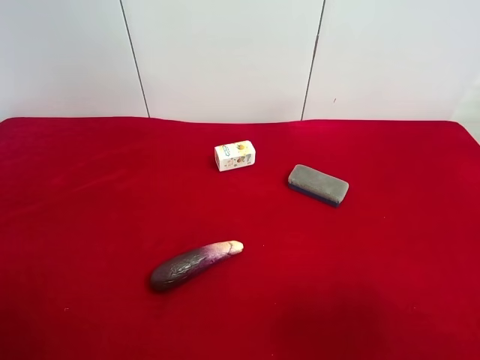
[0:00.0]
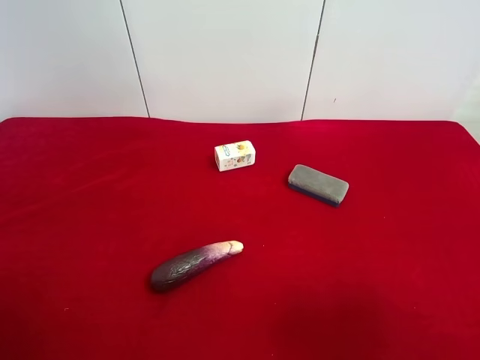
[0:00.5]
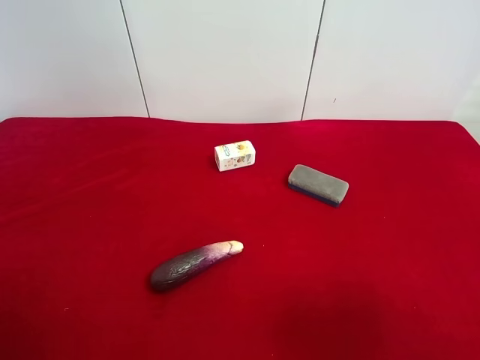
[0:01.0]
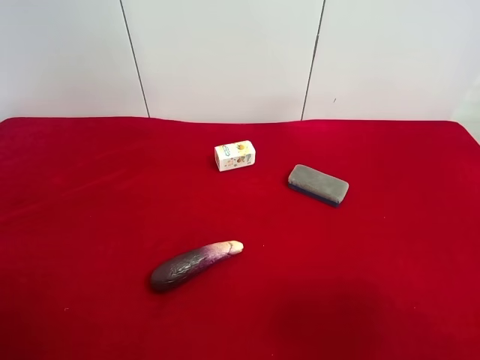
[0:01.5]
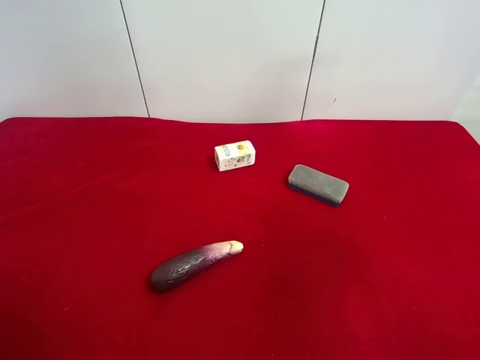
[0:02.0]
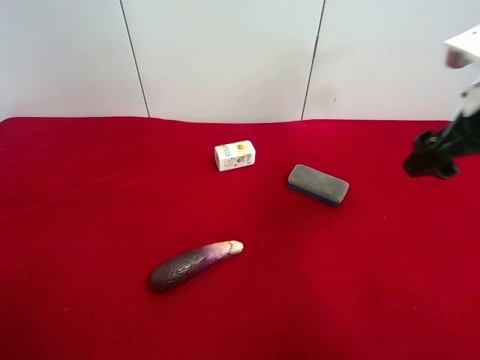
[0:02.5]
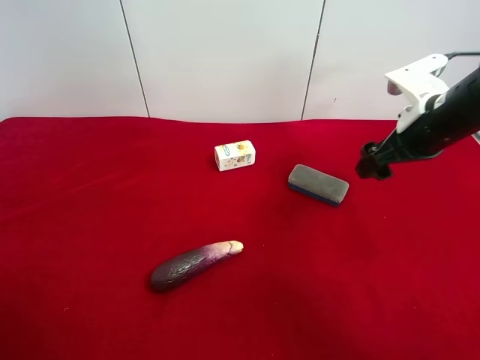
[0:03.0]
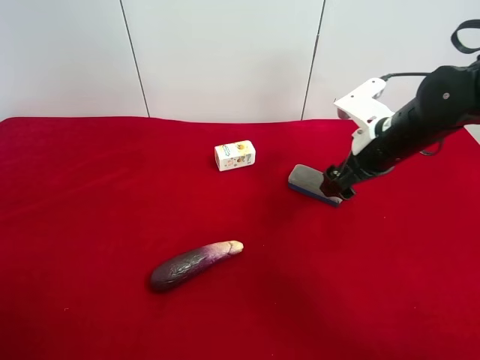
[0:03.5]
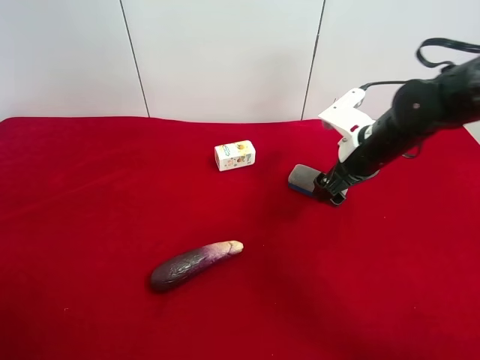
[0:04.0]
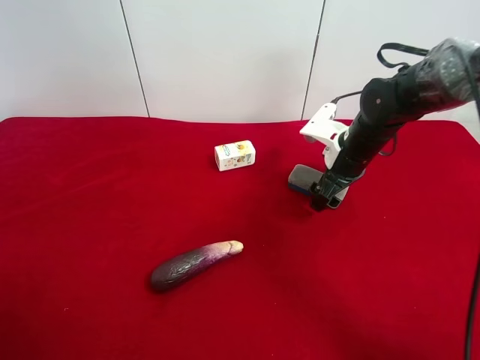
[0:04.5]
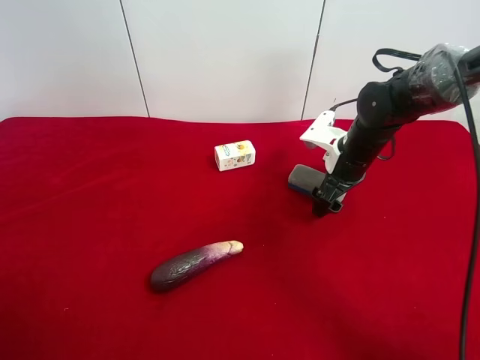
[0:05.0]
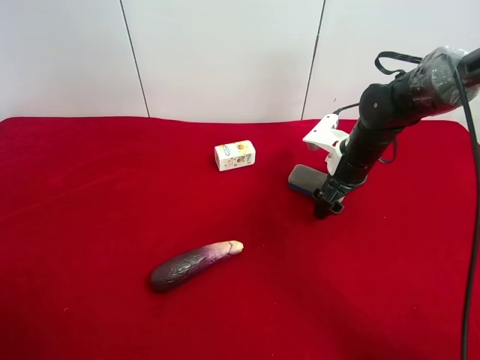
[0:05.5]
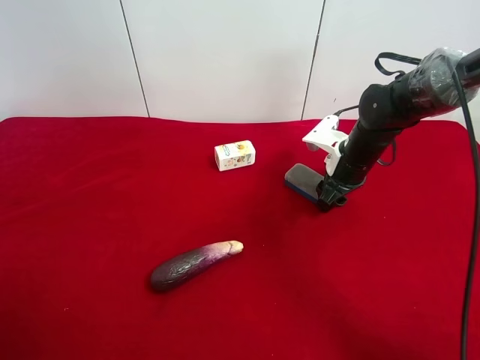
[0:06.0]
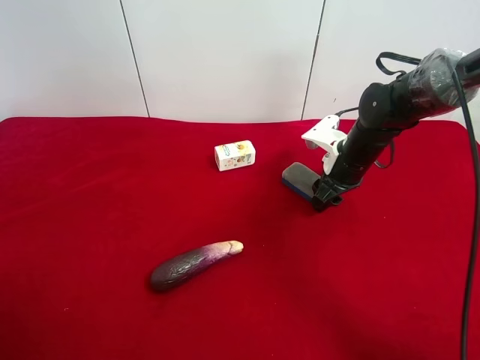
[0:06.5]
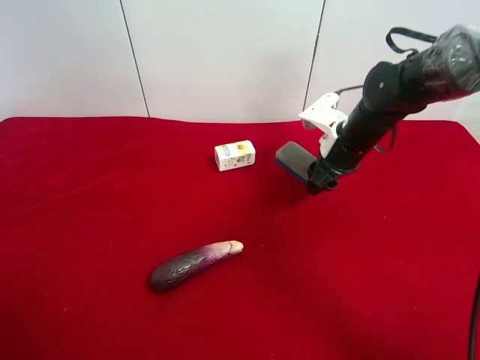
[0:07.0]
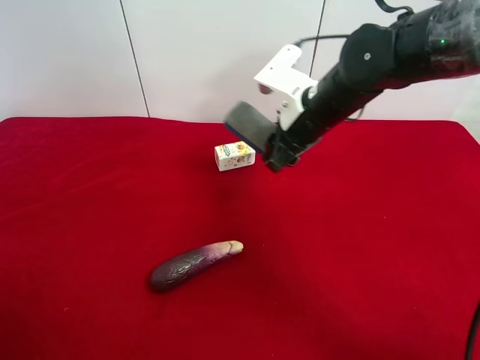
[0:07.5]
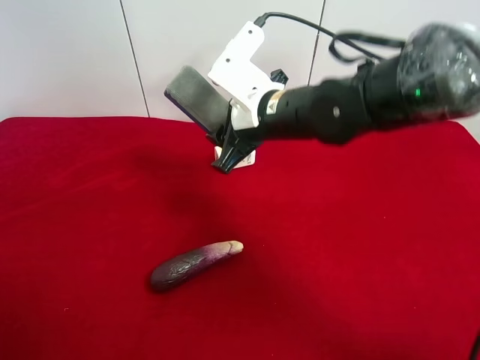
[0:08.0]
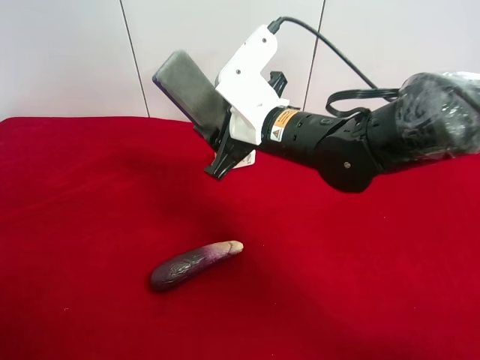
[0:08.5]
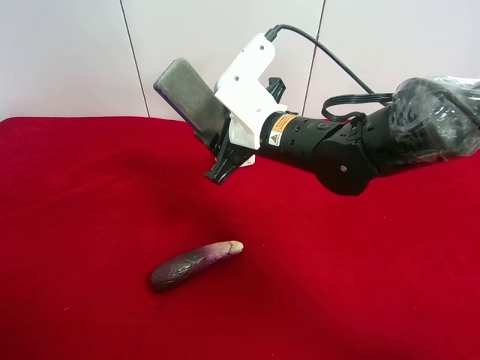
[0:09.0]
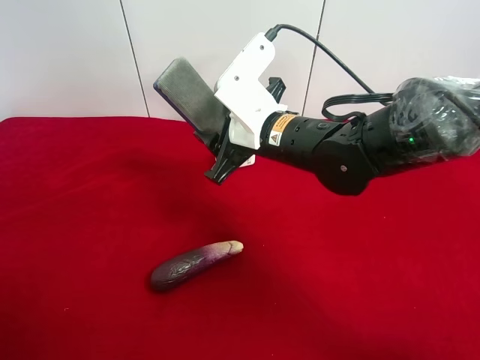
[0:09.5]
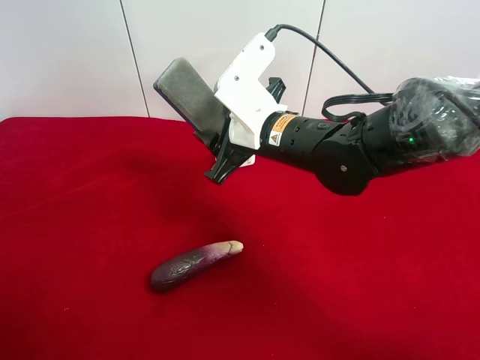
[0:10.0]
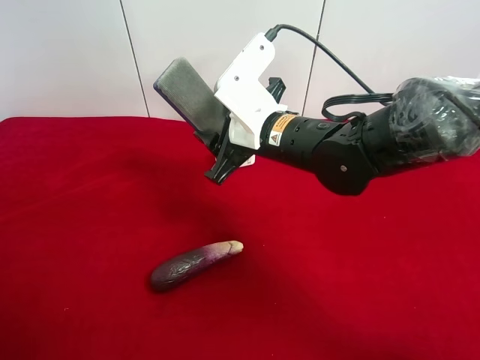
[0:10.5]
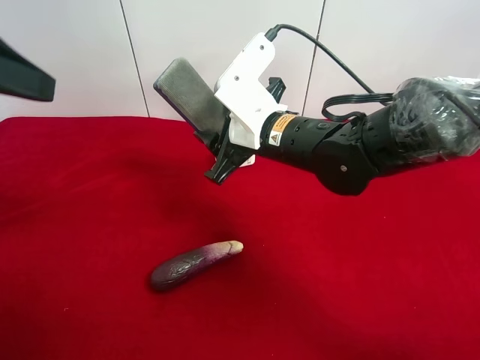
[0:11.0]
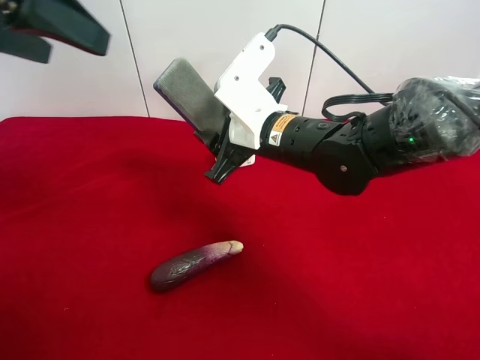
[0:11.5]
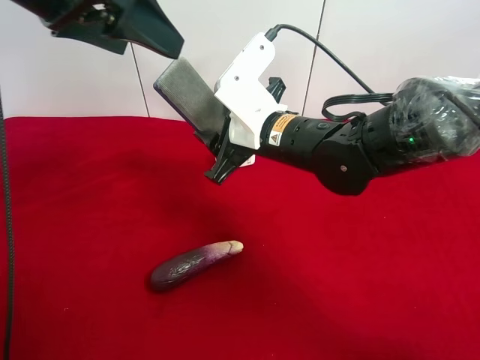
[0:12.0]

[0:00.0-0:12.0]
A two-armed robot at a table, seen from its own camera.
Task of the whole recording: use the right gripper to pick up the item and transfer it from the right gripper to the left gripper.
Step, 0:00.0 to 0:06.0: Use the right gripper to grab the blue blackboard erasure on the right side of the table.
0:02.0 to 0:04.0: The right gripper goes about 30 cm forward and downward.
0:04.0 to 0:06.0: The right gripper moves approximately 5 cm, and closes its fingers.
0:06.0 to 0:08.0: The right gripper heads to the left, upward and backward, covering roughly 20 cm.
0:08.0 to 0:10.0: There are only small adjustments of the grippers.
0:10.0 to 0:12.0: The left gripper moves forward and to the right, about 30 cm.

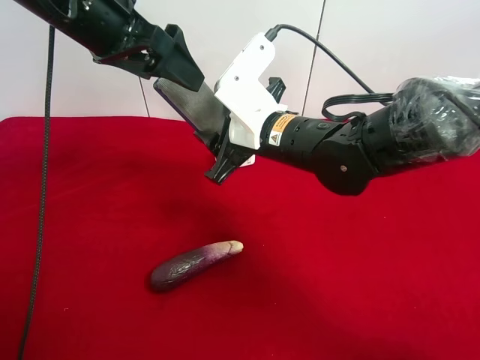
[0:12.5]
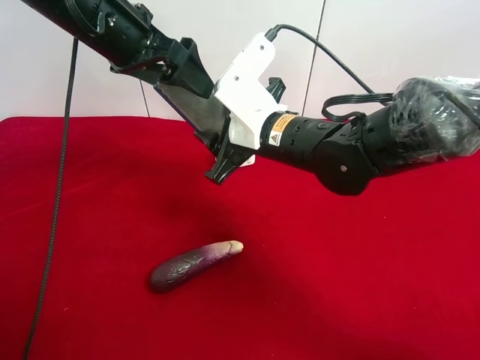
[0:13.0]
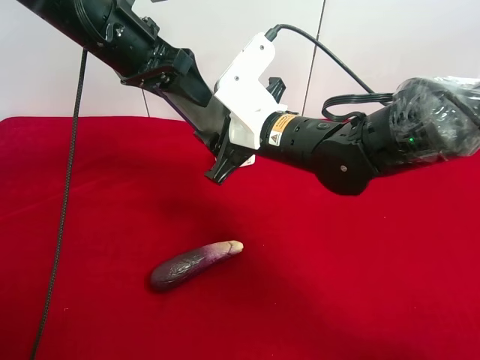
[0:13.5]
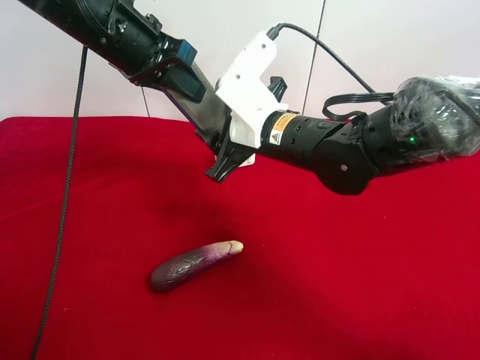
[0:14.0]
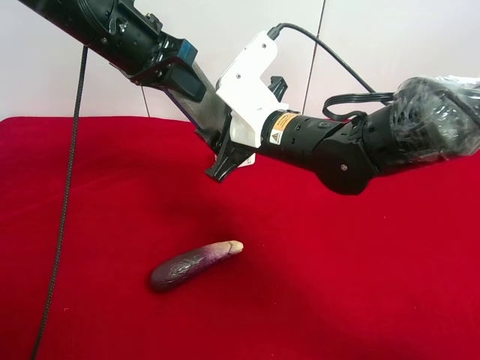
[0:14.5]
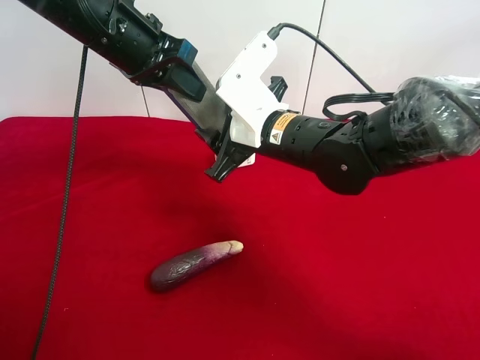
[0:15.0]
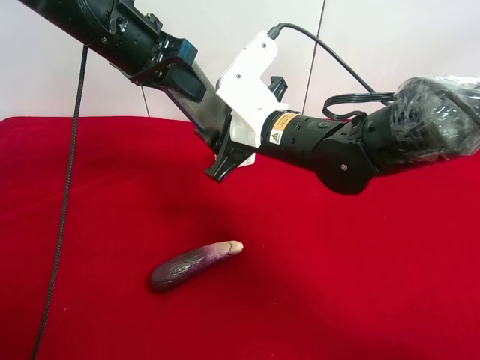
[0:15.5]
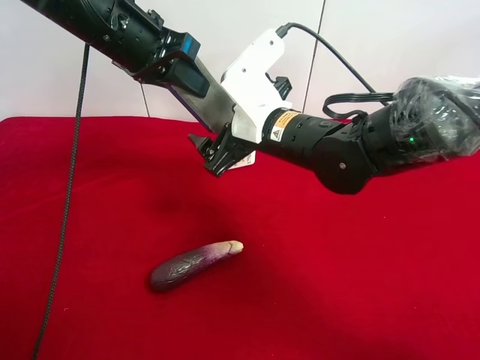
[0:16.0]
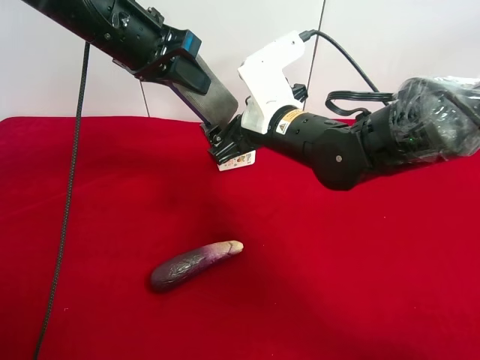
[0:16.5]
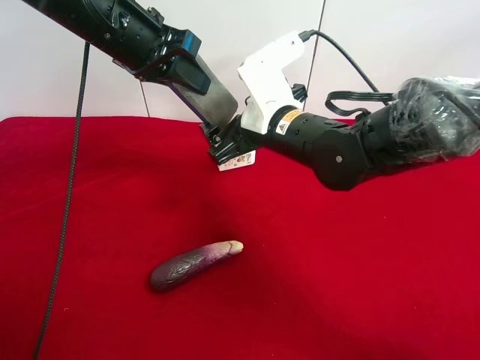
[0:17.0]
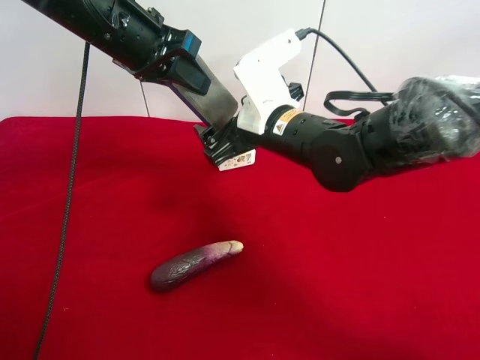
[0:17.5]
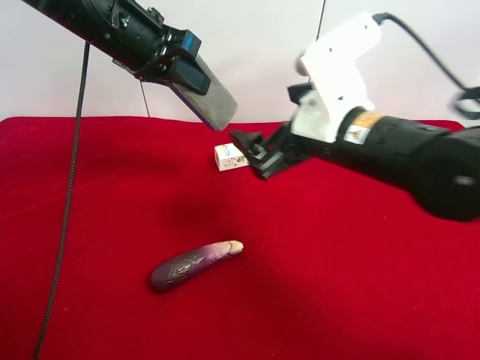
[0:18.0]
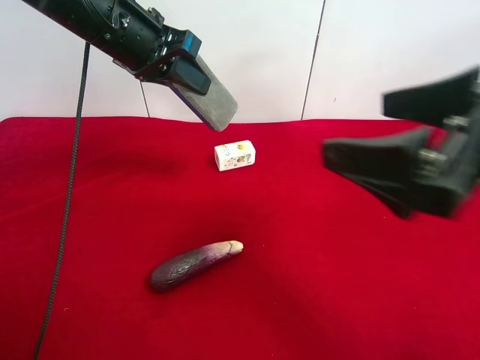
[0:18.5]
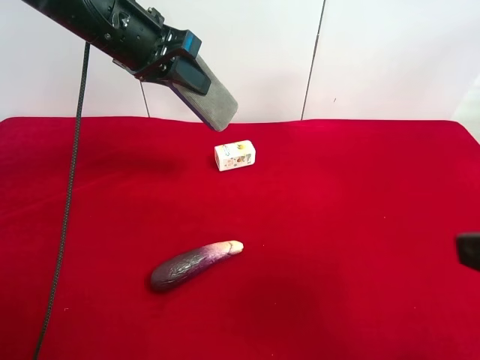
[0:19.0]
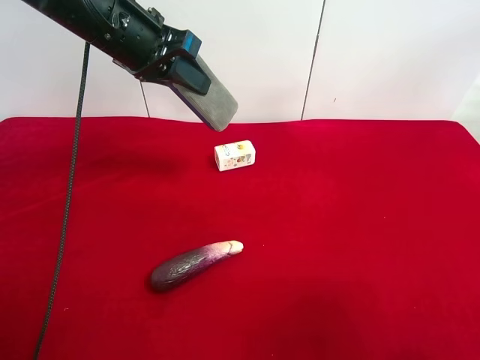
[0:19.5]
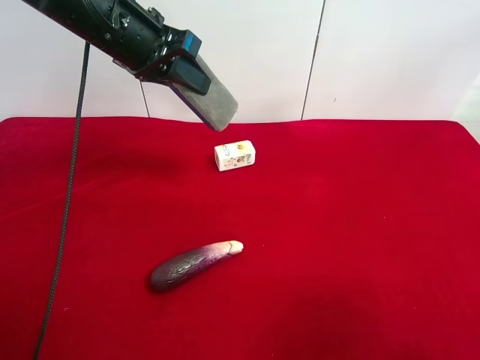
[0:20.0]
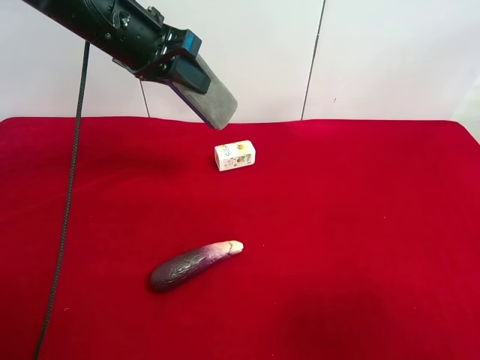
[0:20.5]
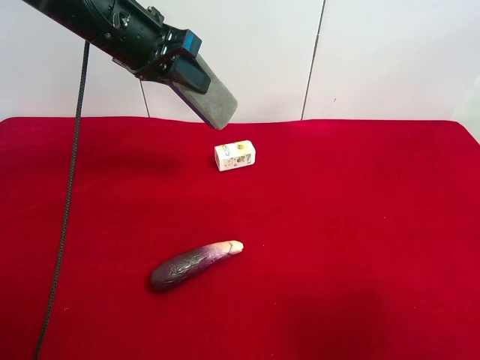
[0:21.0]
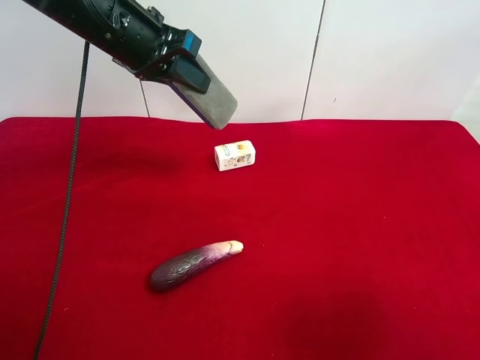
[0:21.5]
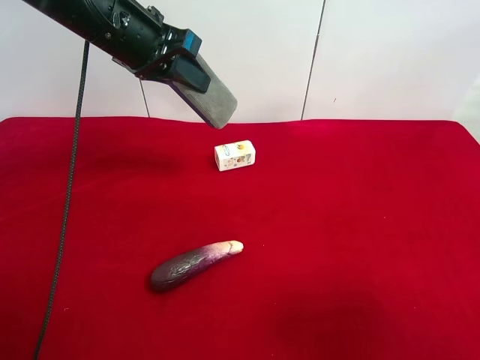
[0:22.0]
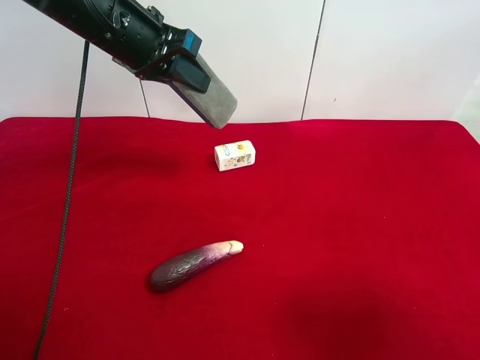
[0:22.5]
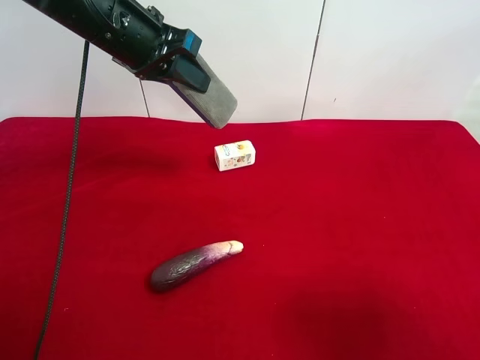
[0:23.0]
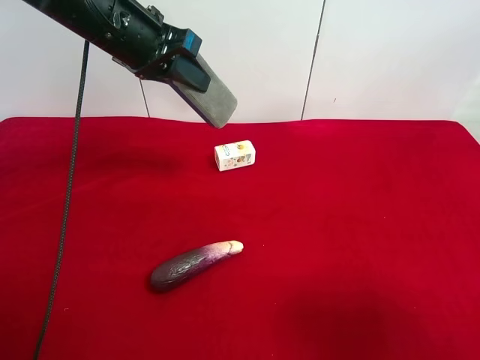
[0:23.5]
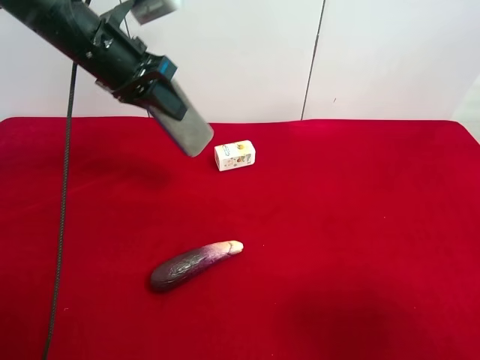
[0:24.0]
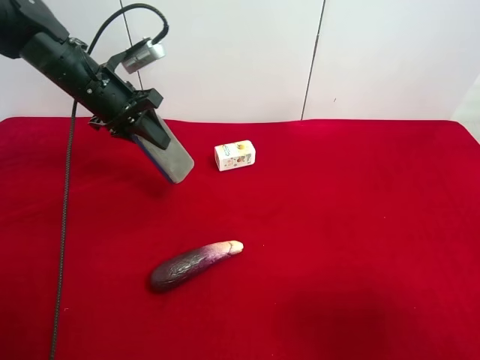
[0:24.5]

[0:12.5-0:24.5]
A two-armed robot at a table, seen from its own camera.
Task of the whole recording: use the right gripper to pick up the item and transfer it from the right gripper to the left gripper.
Step, 0:12.5 to 0:16.0: Pass the blue blackboard erasure to the left gripper.
0:12.5 to 0:14.5: The left gripper closes.
0:14.5 to 0:16.5: The right gripper opens up.
0:16.5 to 0:18.5: The right gripper heads backward, to the right and upward, covering about 25 cm.
0:18.5 to 0:20.5: The right gripper moves backward and to the right, approximately 15 cm.
0:22.5 to 0:24.5: The left gripper is displaced downward and to the left by roughly 10 cm.

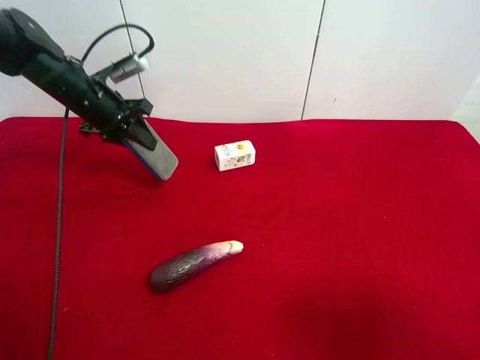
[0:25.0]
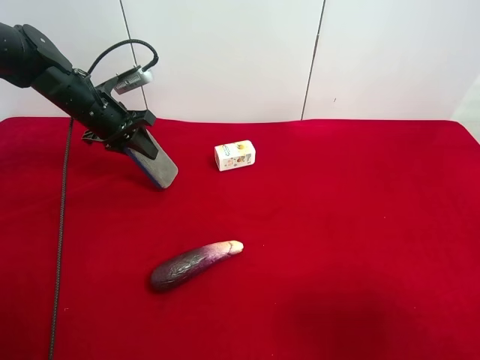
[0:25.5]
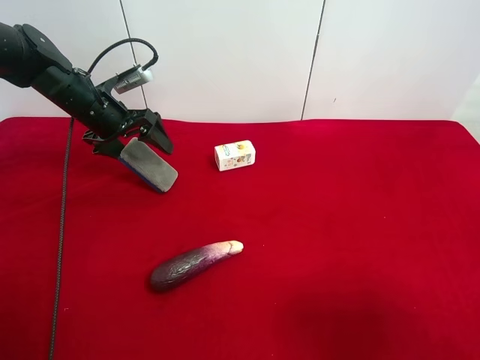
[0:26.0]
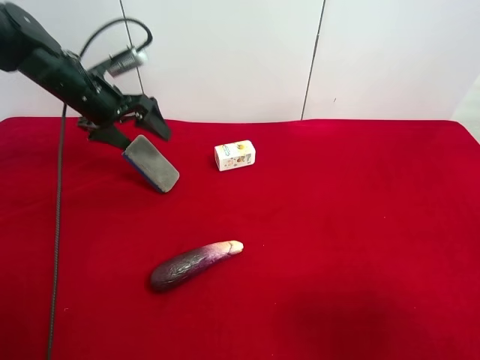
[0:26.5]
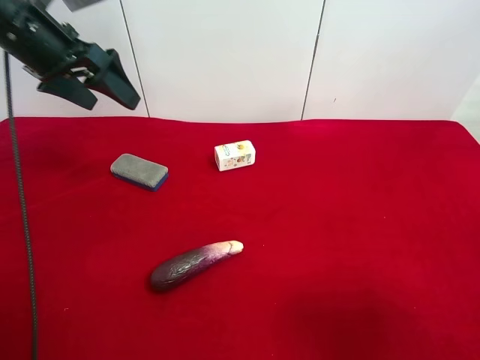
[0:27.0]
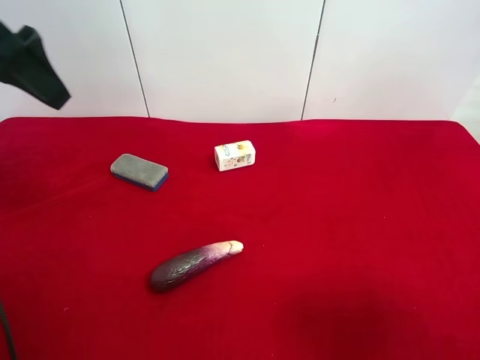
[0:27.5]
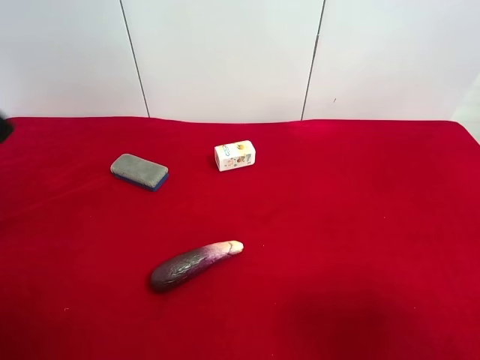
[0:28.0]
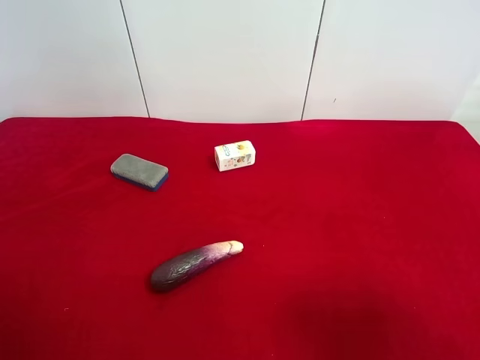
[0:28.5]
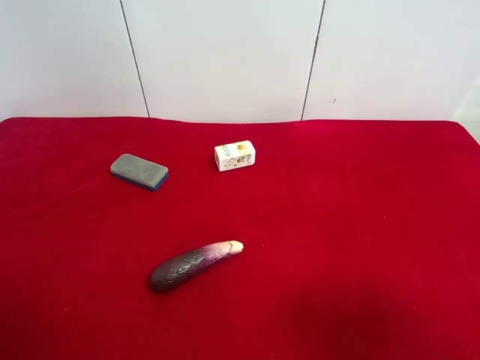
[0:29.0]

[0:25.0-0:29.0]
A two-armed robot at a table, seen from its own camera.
Task of the whole recording: use the right gripper to pick up the item and transfer it from the right gripper to the left gripper.
0:25.0 to 0:27.0: The left gripper shifts roughly 15 cm upward and backward, and opens.
0:27.0 to 0:29.0: The left gripper shifts some 35 cm backward.
